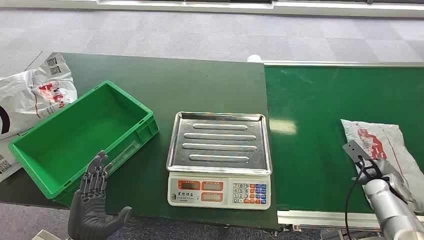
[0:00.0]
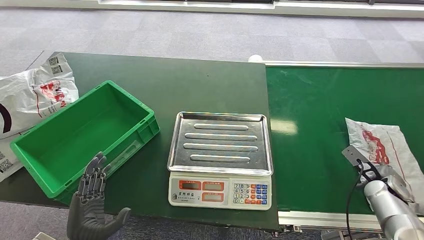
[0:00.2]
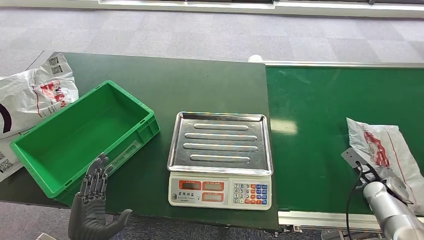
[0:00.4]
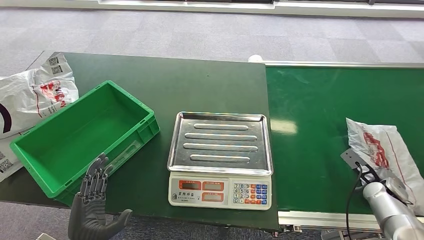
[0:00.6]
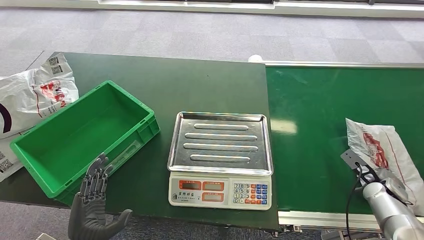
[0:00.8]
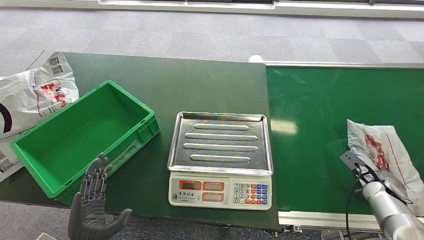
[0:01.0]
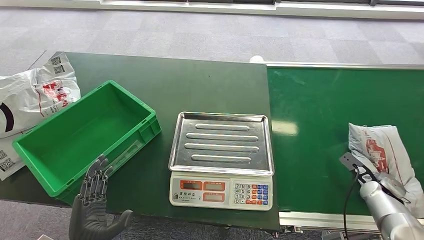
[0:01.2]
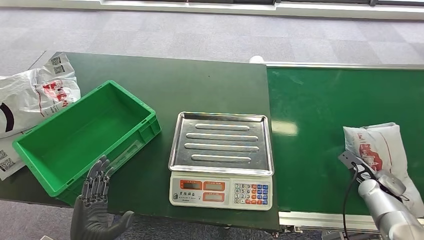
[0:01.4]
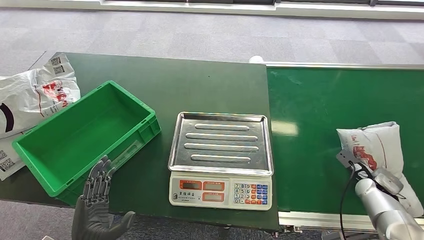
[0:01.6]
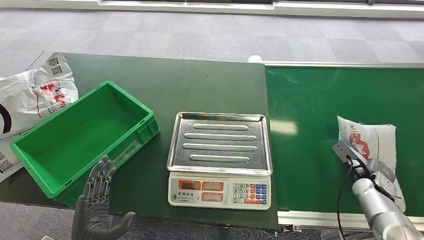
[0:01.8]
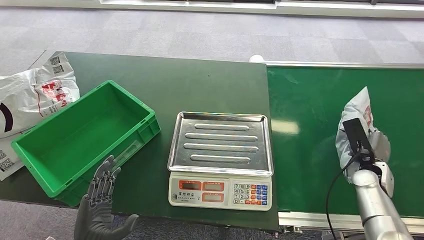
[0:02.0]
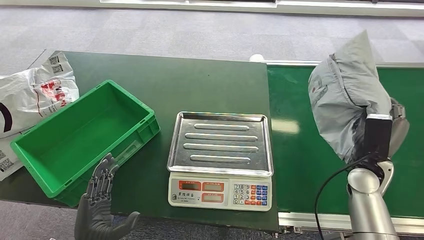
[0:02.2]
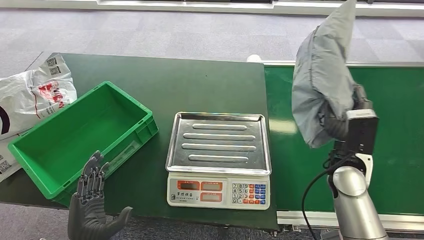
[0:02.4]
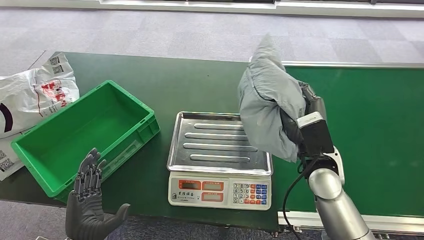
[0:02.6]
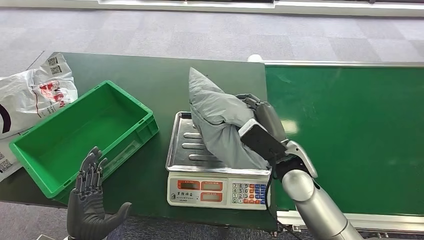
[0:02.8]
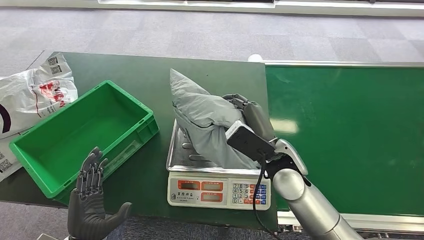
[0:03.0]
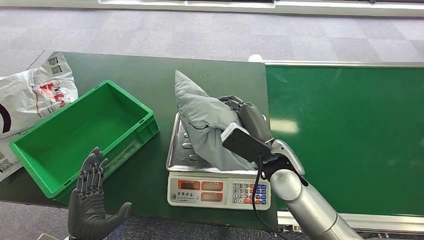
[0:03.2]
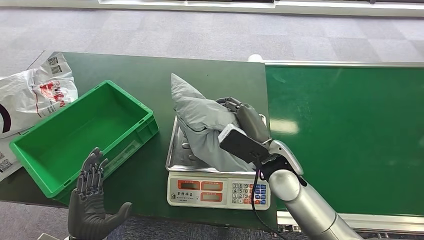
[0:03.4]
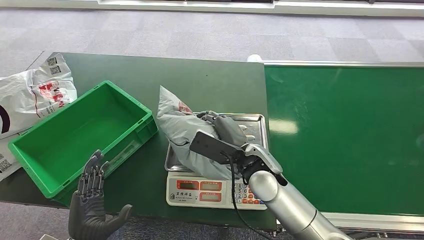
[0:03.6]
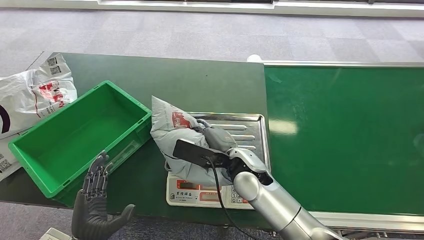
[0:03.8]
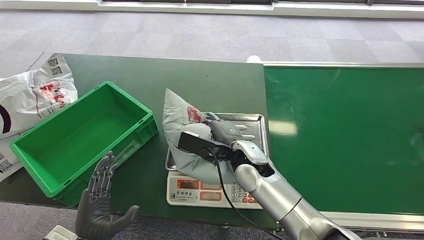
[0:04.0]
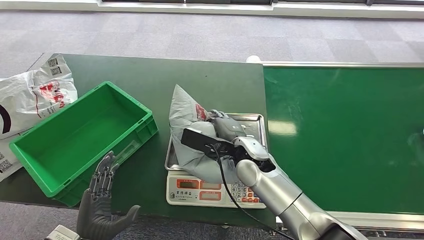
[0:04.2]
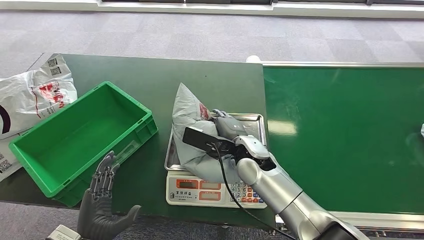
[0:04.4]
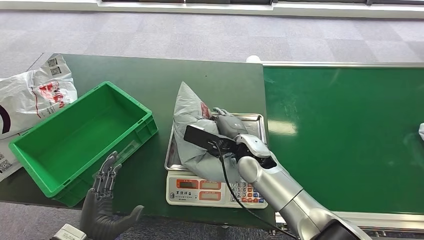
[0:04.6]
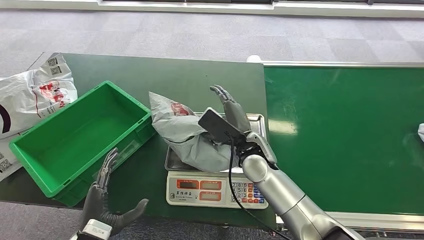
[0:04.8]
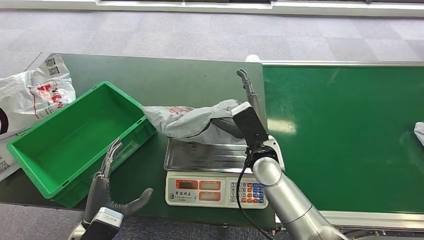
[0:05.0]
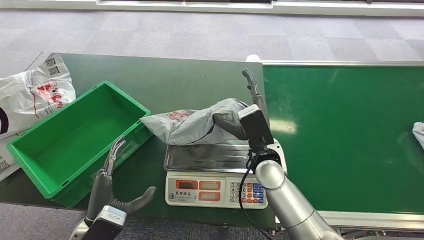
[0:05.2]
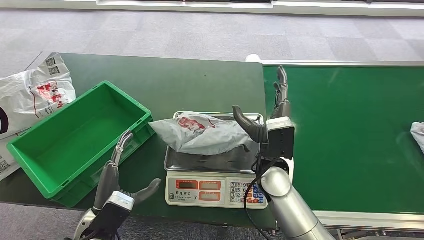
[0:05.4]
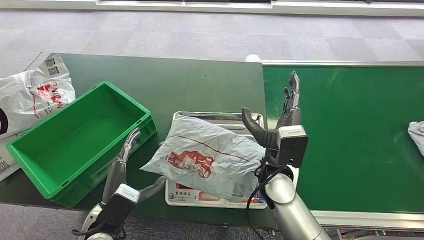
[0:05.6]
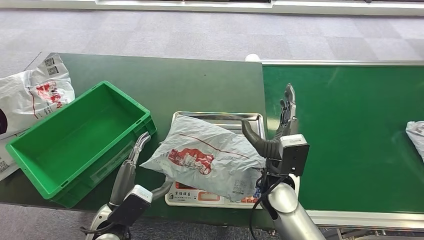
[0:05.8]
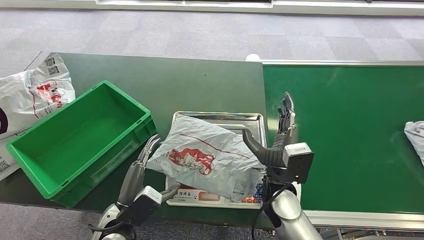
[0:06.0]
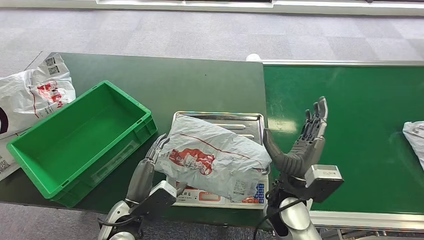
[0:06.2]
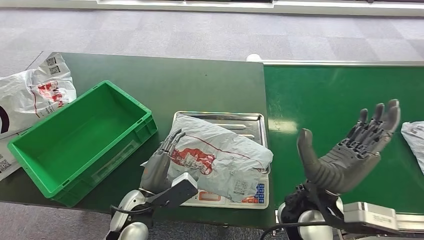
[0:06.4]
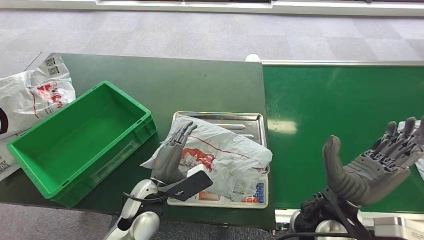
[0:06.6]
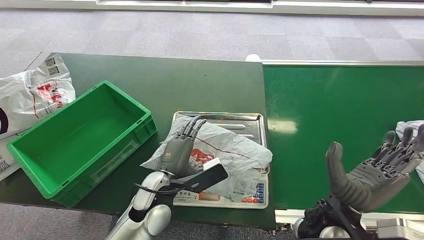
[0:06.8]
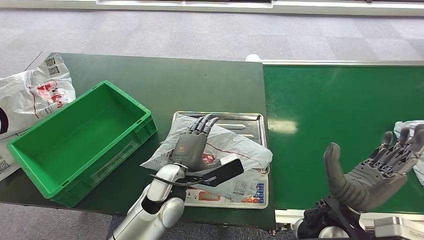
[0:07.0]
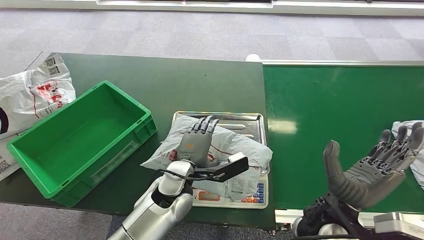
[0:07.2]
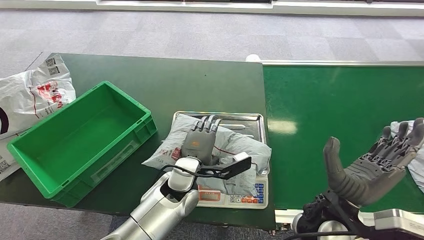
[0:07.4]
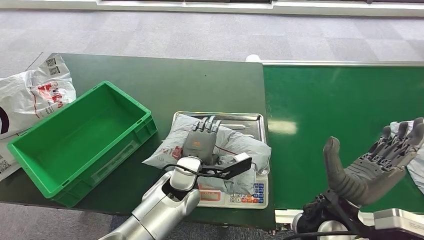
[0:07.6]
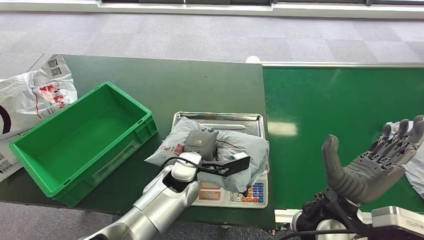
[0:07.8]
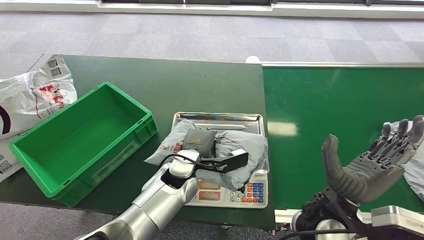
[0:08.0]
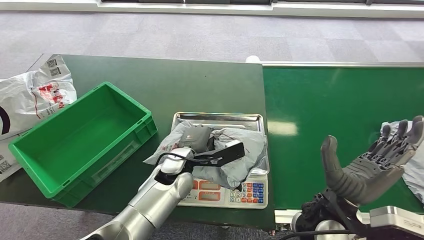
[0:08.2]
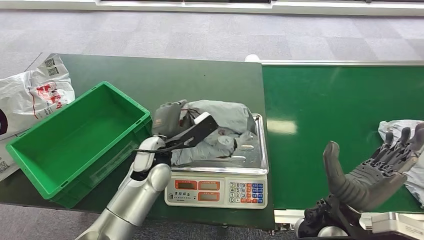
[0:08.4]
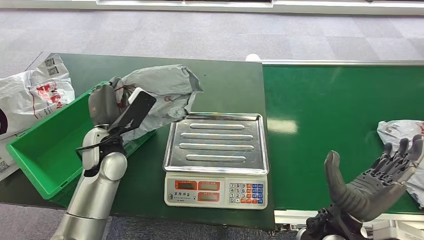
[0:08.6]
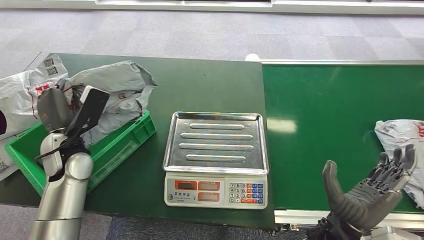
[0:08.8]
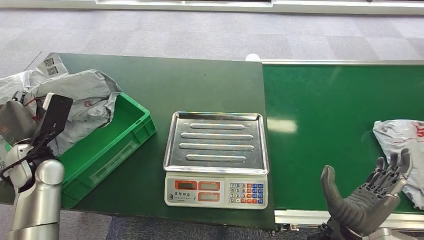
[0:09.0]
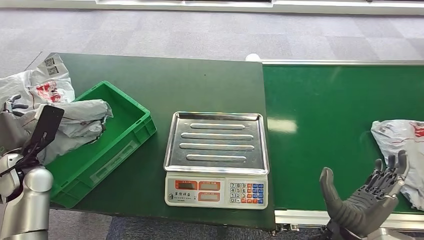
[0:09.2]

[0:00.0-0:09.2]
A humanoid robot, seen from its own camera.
Step, 0:00.0 to 0:02.2: Pick up the package from the conveyor belt.
Step, 0:02.4 to 0:06.0: Place the package onto the inbound machine.
Step, 0:06.2 to 0:08.6: Pick up the package from the inbound machine.
Step, 0:08.8 to 0:09.2: Place the package into the parcel locker.
